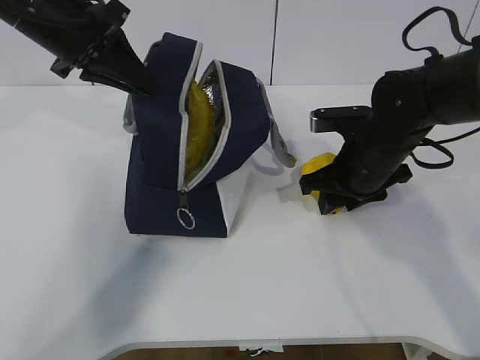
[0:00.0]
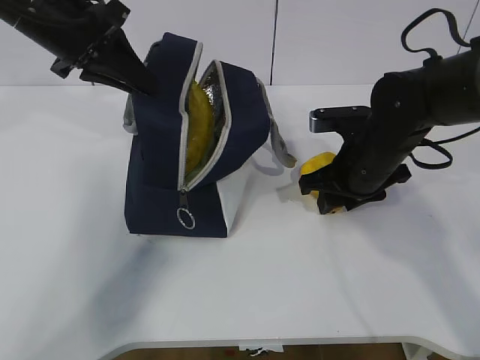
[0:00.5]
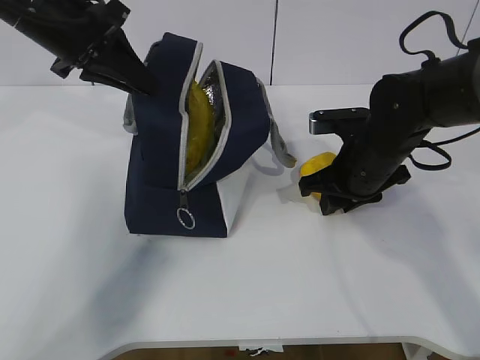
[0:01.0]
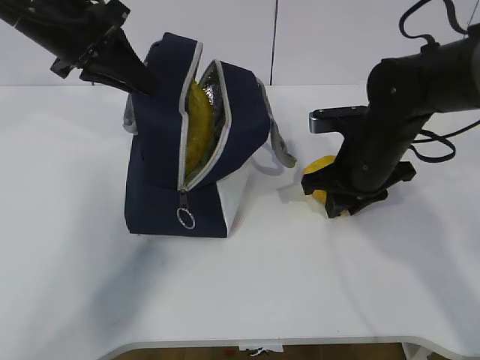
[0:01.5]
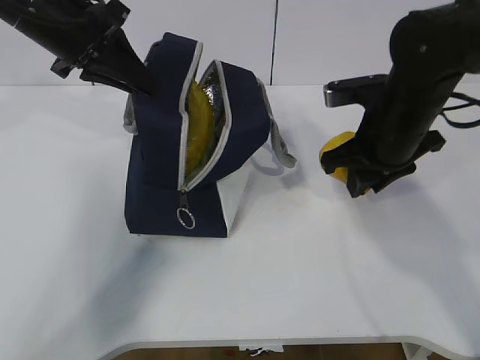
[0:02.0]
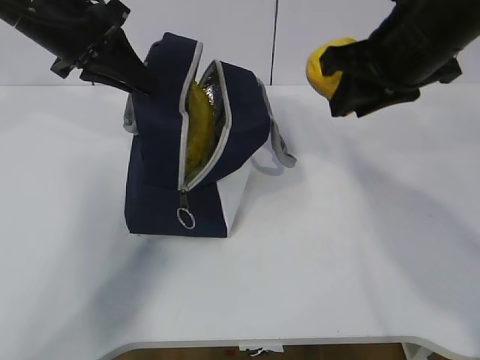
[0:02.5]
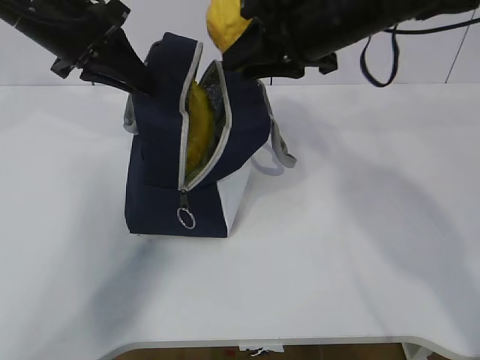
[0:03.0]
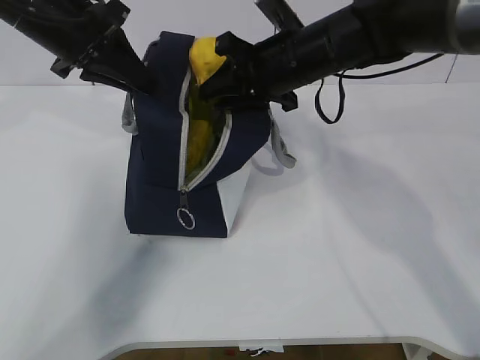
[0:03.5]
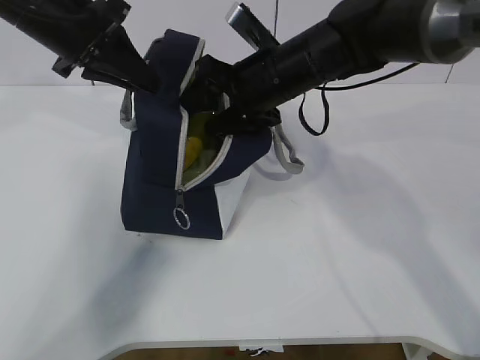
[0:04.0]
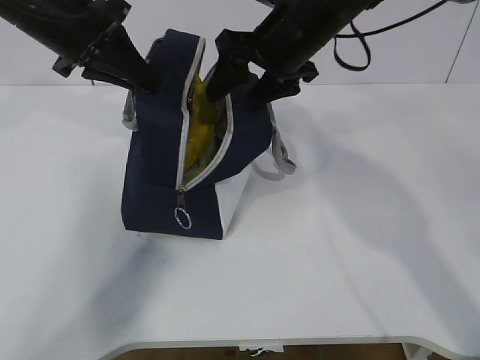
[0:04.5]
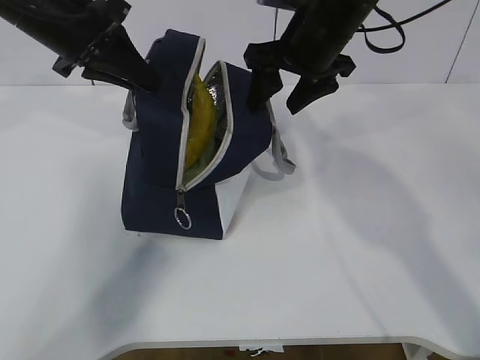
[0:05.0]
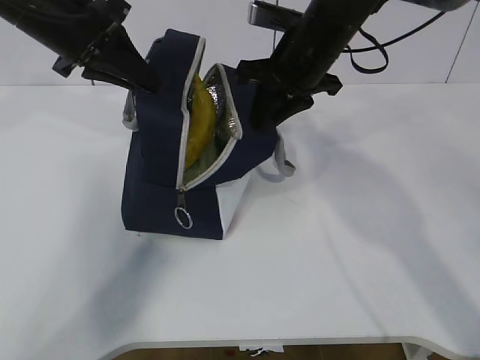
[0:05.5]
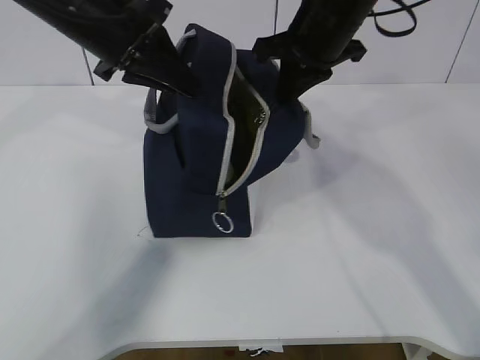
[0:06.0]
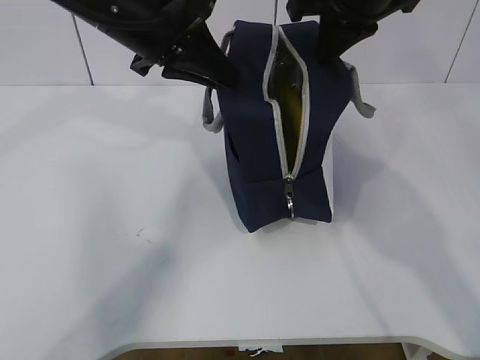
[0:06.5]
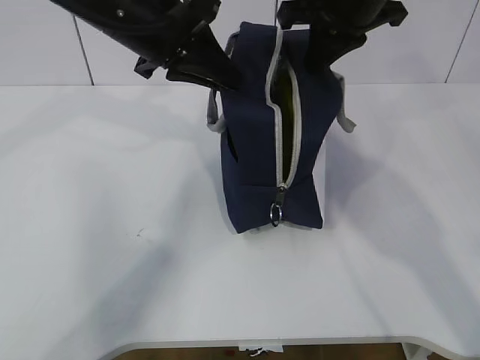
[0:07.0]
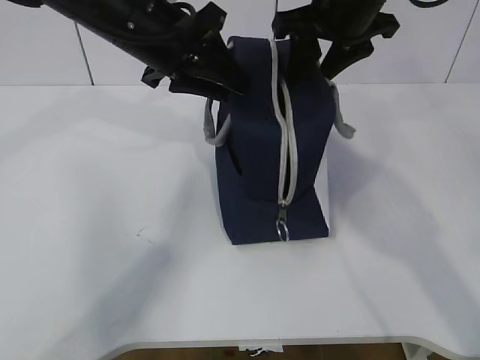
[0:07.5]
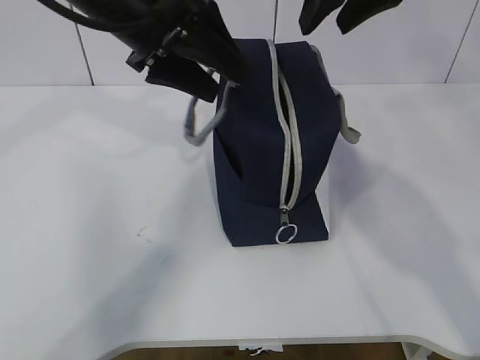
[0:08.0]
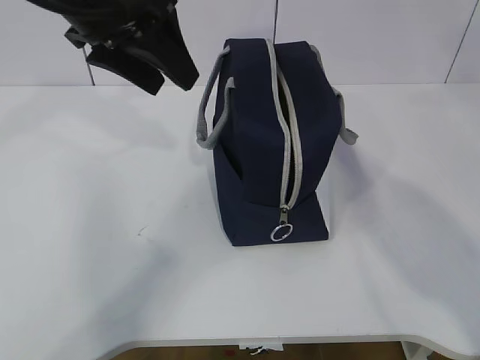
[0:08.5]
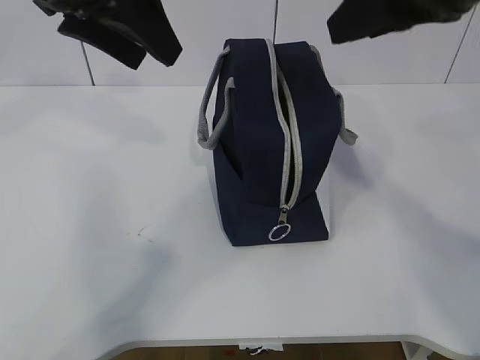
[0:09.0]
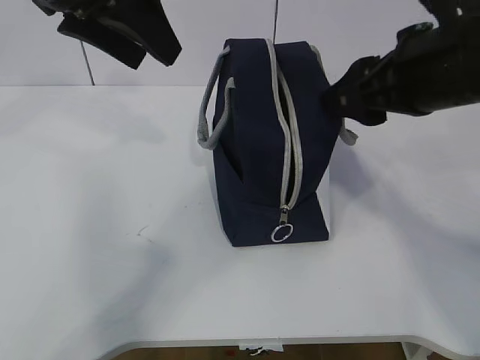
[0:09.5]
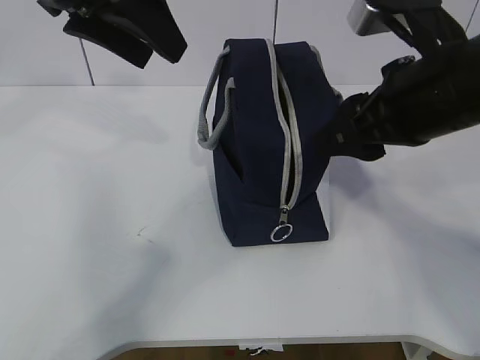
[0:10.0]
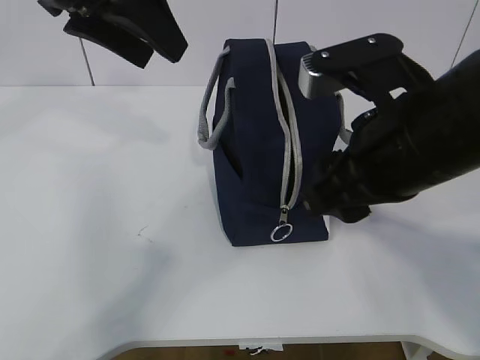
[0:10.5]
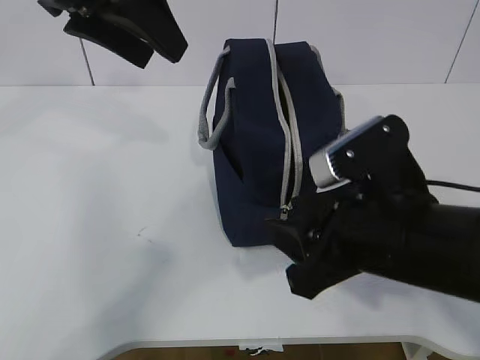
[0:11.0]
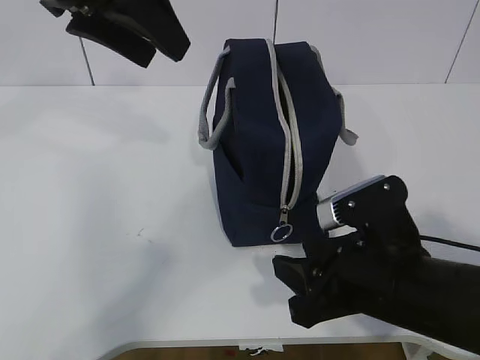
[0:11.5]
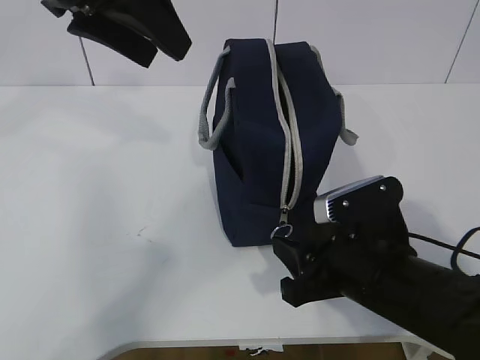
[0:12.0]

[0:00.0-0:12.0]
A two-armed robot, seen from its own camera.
Step, 0:00.0 to 0:01.0: Move the lunch bag to the right.
0:00.0 to 0:02.0: The right gripper is displaced upward by approximately 5 cm.
0:02.0 to 0:04.0: The right gripper is displaced to the left and forward by roughly 15 cm, and opens up.
0:04.0 to 0:06.0: The right gripper goes about 10 cm upward and to the right, and closes its fingers.
0:06.0 to 0:08.0: The left gripper opens its fingers. Meanwhile the right gripper moves upward, approximately 10 cm, and opens.
0:08.0 to 0:10.0: The right gripper shifts about 15 cm backward and downward; the left gripper shifts some 5 cm upward.
0:10.0 to 0:12.0: The right gripper heads downward, covering about 15 cm.

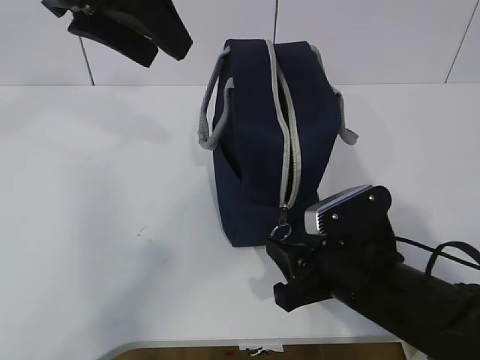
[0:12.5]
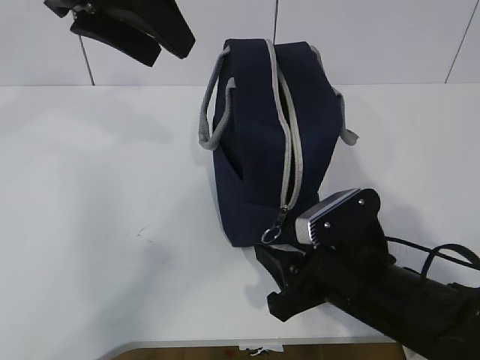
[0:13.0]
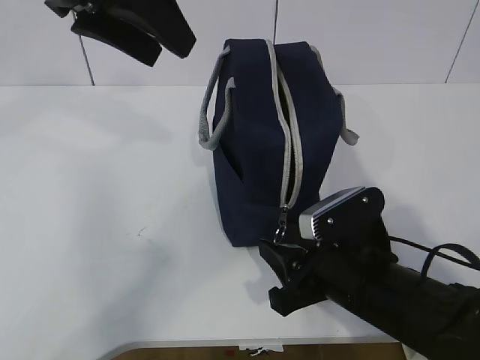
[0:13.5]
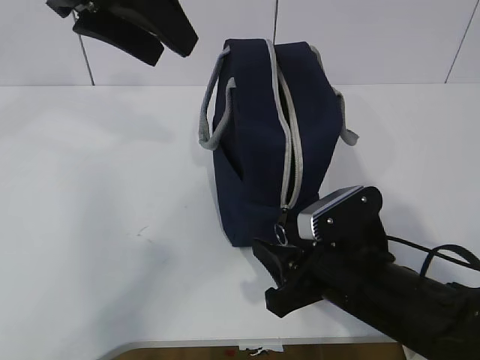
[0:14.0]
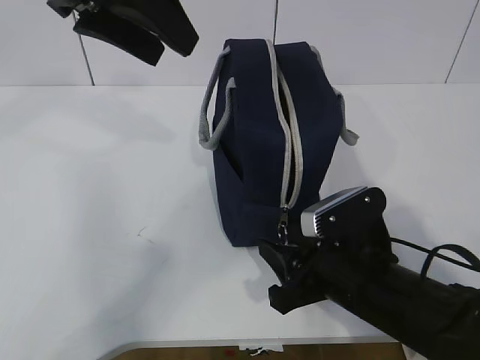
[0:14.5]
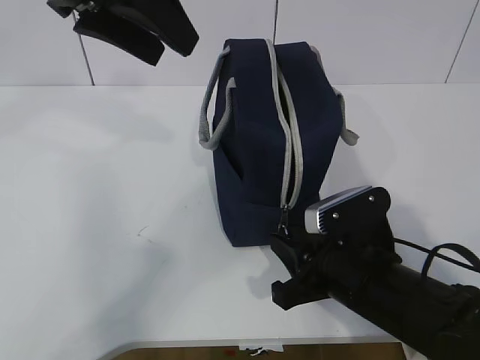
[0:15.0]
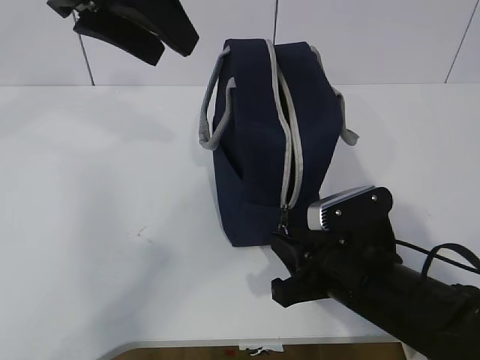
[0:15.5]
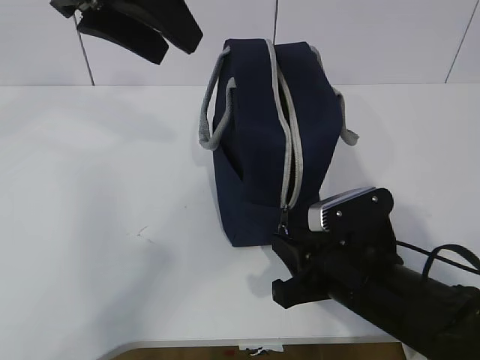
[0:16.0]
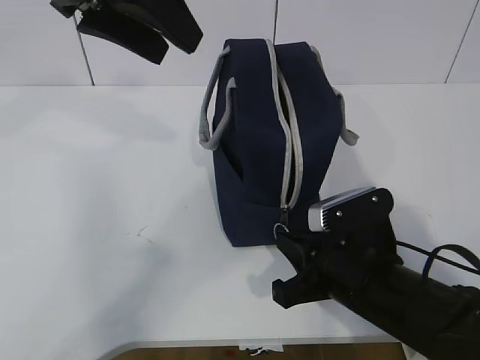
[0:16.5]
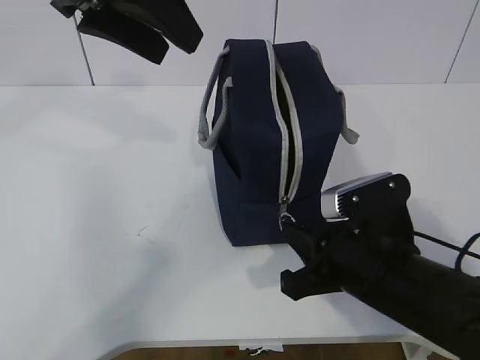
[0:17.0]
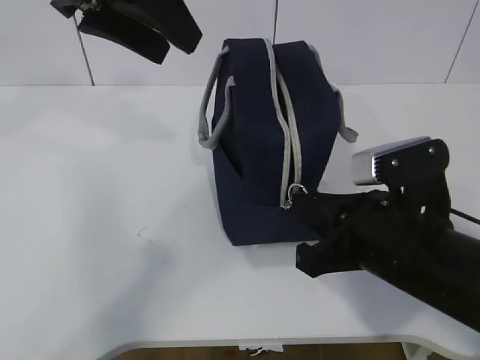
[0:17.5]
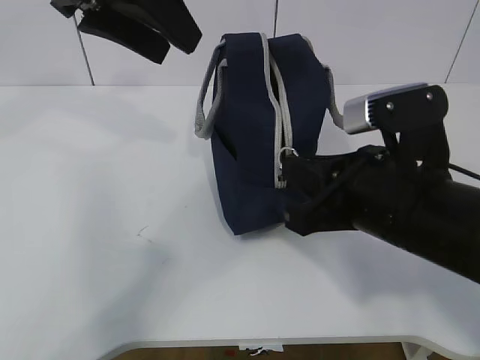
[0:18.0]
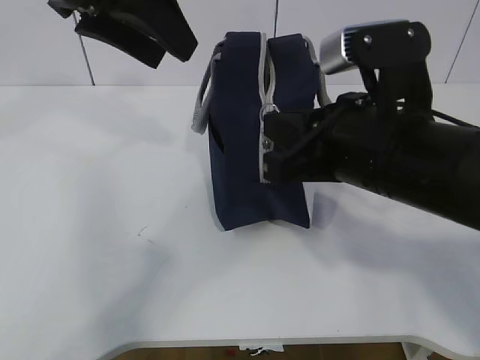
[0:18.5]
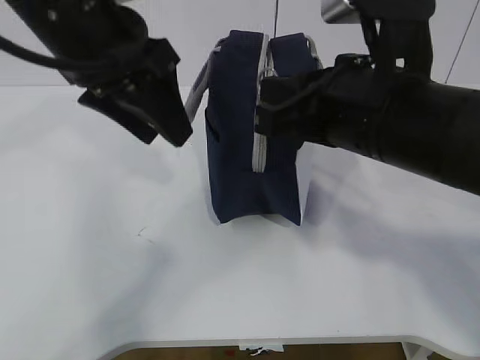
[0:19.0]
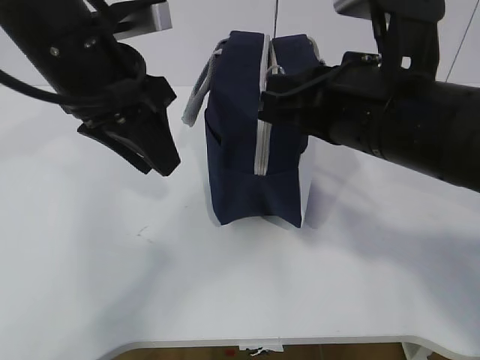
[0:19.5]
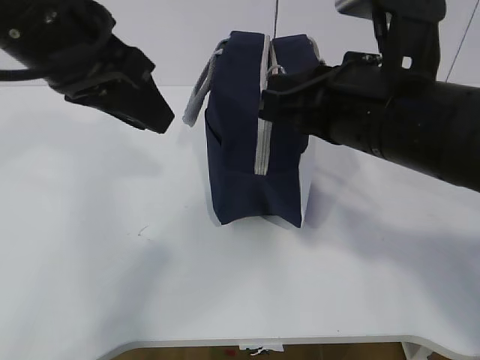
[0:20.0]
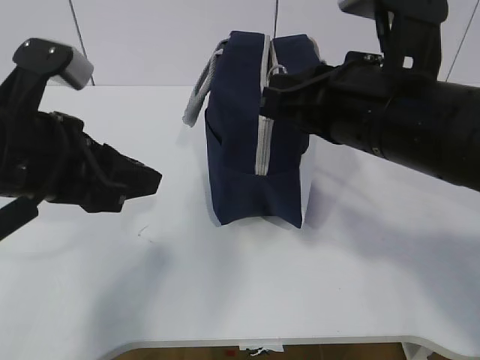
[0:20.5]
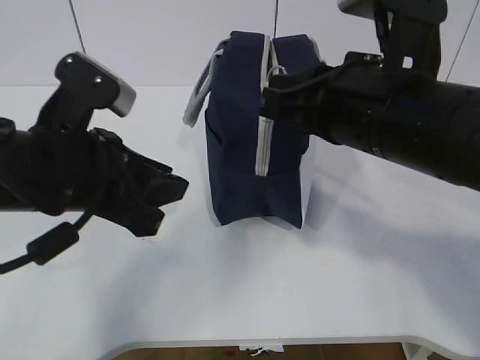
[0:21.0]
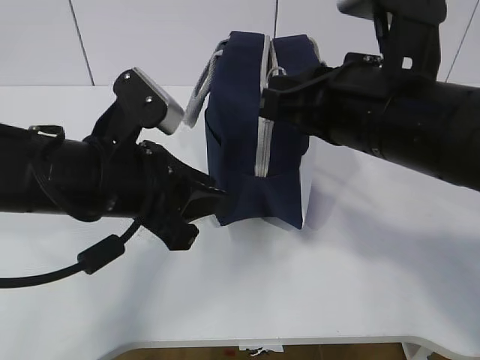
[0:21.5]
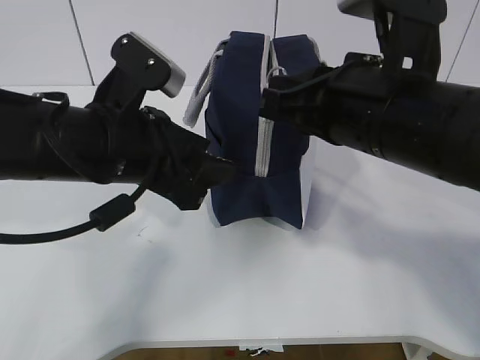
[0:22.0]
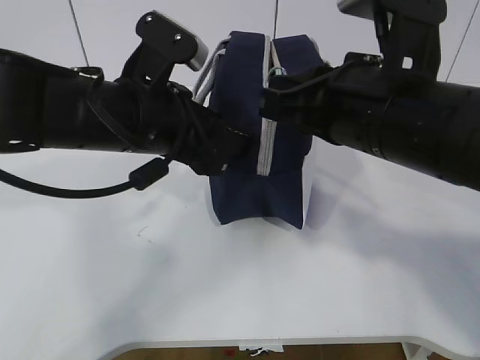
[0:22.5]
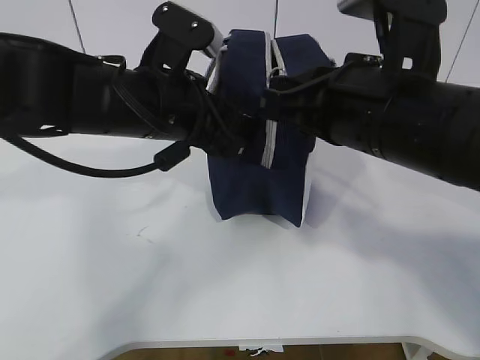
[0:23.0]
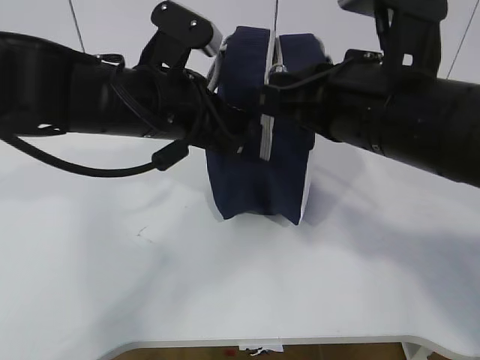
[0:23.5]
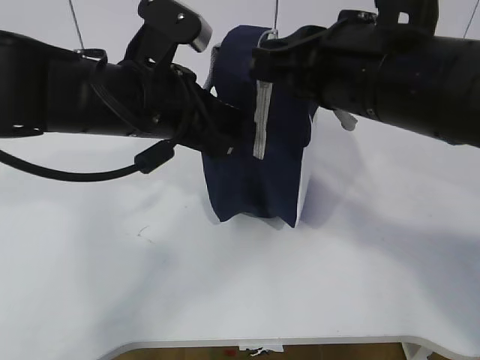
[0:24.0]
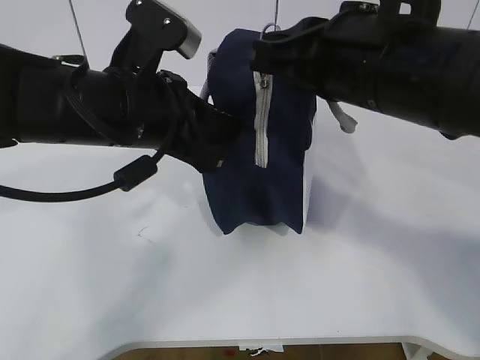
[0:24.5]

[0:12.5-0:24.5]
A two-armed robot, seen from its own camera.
0:12.5 to 0:14.5: The grippers make only small movements.
0:14.5 to 0:16.5: The right gripper closes up.
0:16.5 to 0:18.5: The right gripper travels upward by roughly 15 cm.
0:18.5 to 0:20.5: The left gripper shifts some 15 cm downward and backward.
0:20.5 to 0:22.5: The left gripper moves to the right and forward, approximately 10 cm, and opens its fingers.
0:22.5 to 0:24.5: The left gripper closes up.

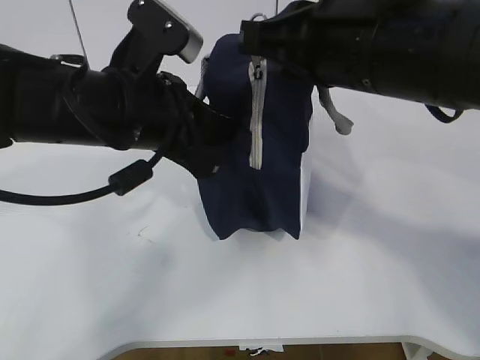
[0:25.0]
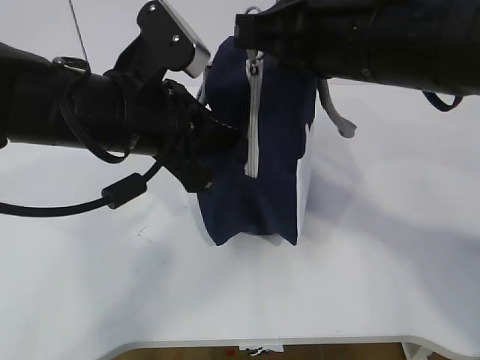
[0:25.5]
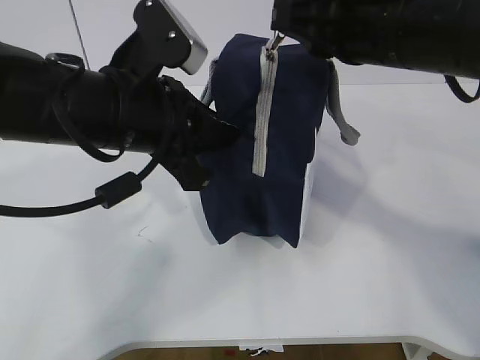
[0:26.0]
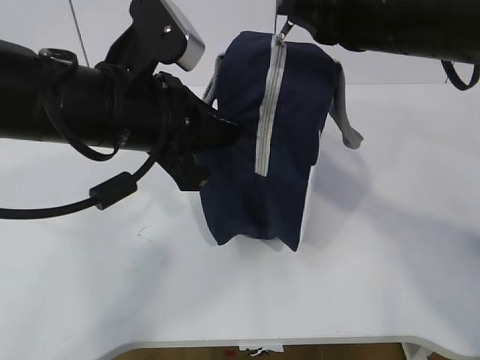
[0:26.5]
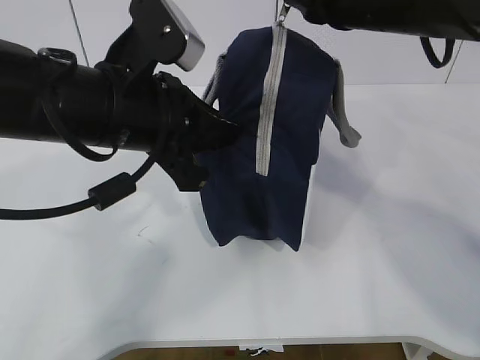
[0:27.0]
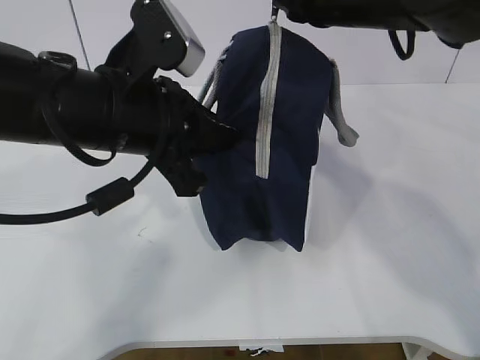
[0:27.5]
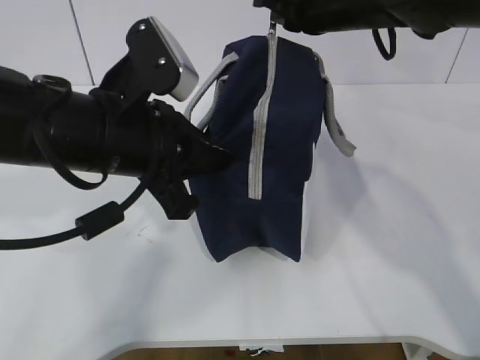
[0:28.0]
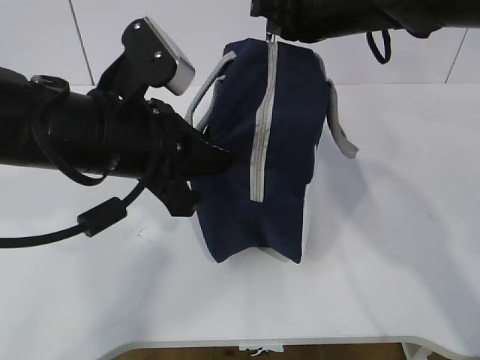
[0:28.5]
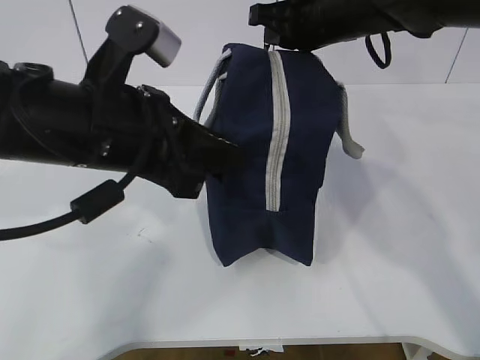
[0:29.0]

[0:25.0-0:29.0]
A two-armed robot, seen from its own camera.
Step, 0:25.0 to 0:25.5: Grab the lunch bag with your left hand.
0:25.0 to 0:27.0: The right gripper travels forward by about 10 cm.
0:27.0 to 0:29.0: The right gripper goes roughly 10 cm forward.
